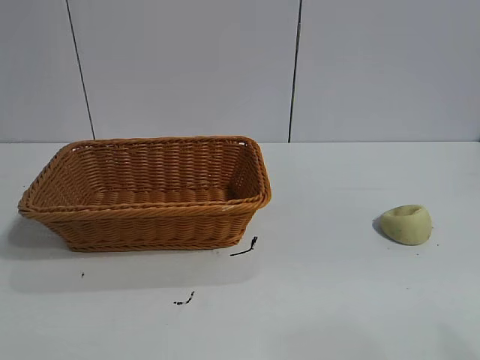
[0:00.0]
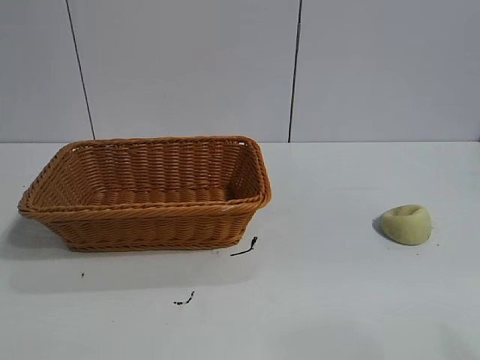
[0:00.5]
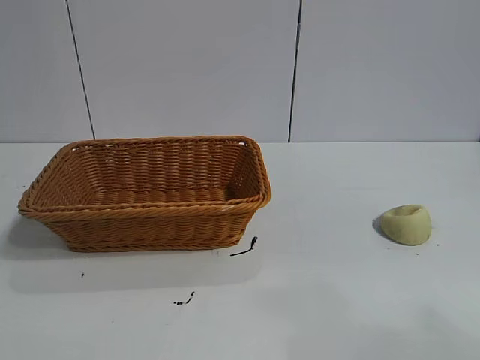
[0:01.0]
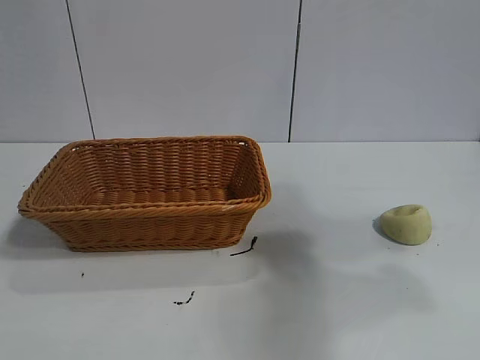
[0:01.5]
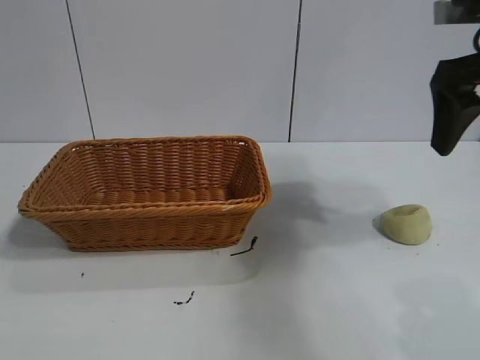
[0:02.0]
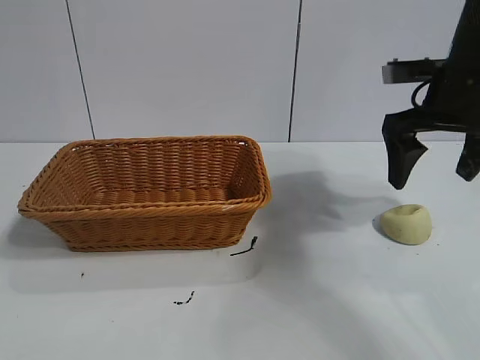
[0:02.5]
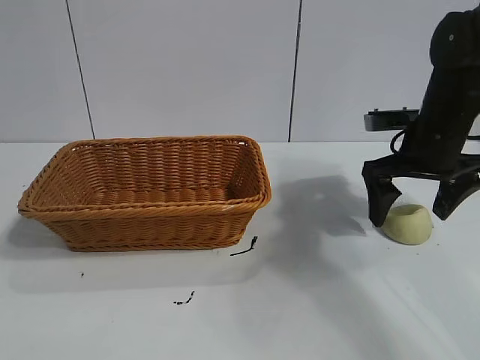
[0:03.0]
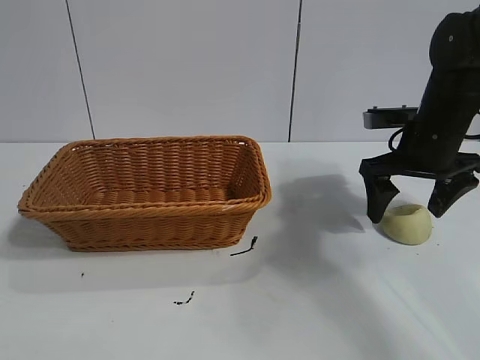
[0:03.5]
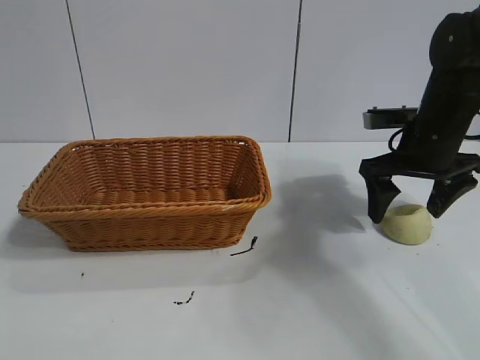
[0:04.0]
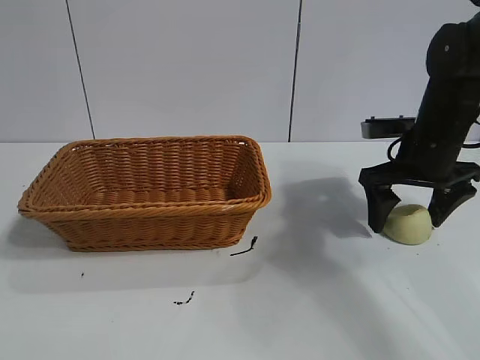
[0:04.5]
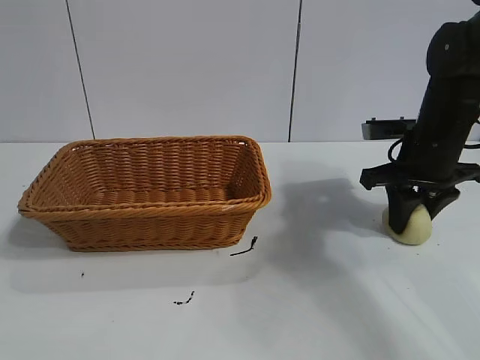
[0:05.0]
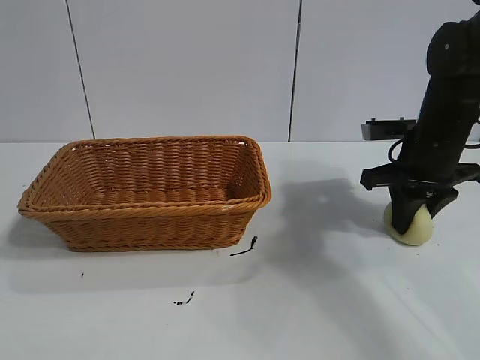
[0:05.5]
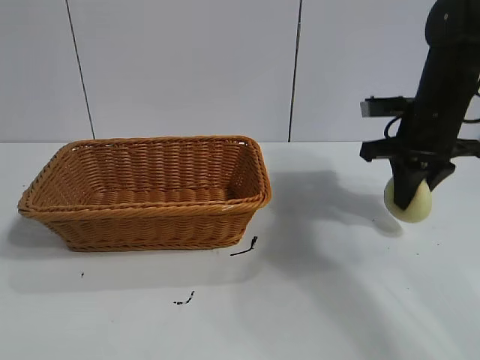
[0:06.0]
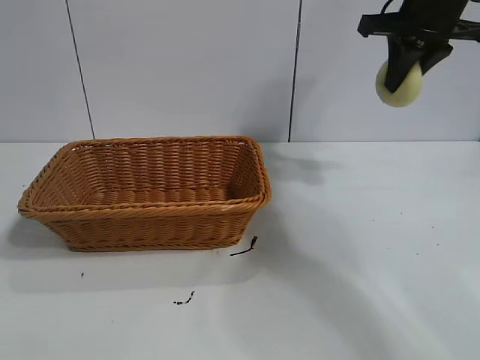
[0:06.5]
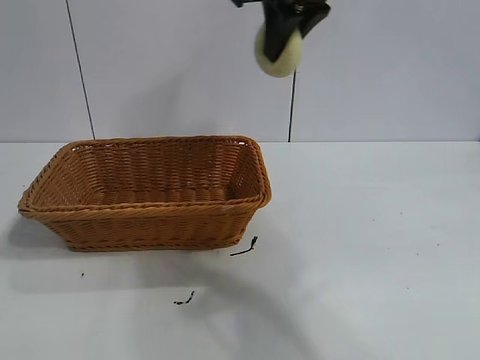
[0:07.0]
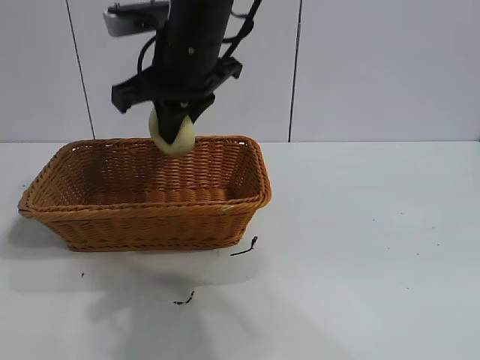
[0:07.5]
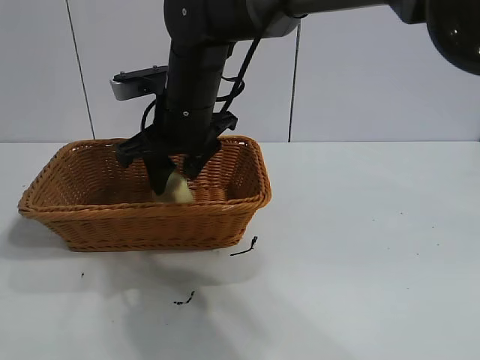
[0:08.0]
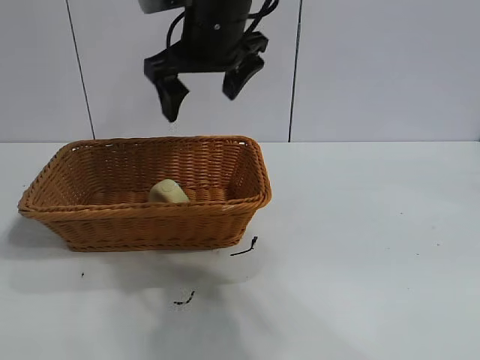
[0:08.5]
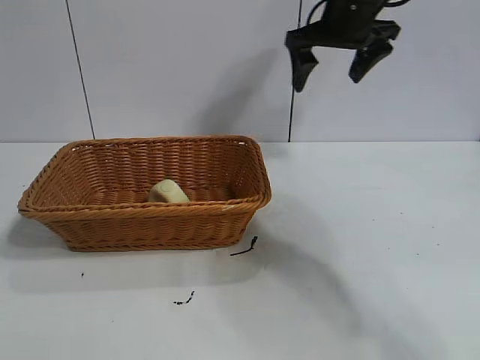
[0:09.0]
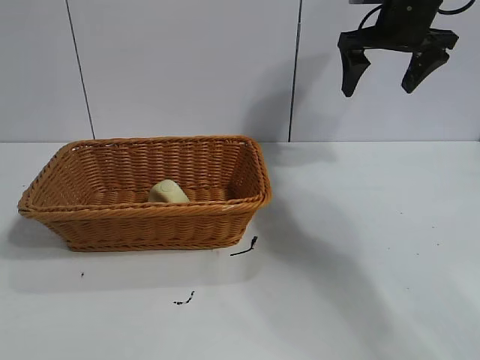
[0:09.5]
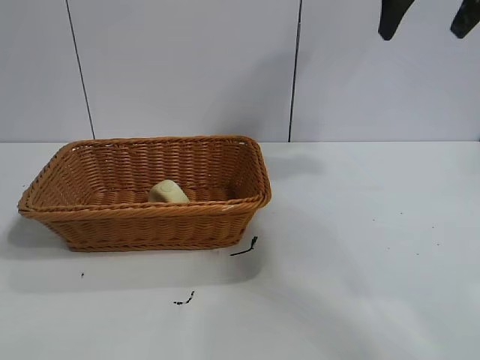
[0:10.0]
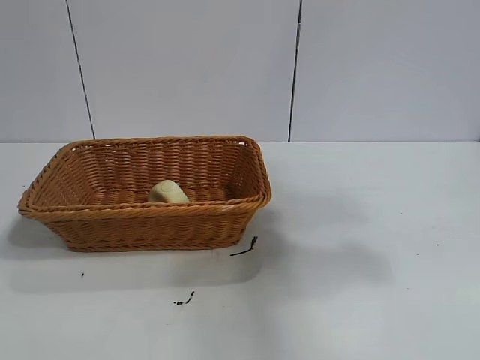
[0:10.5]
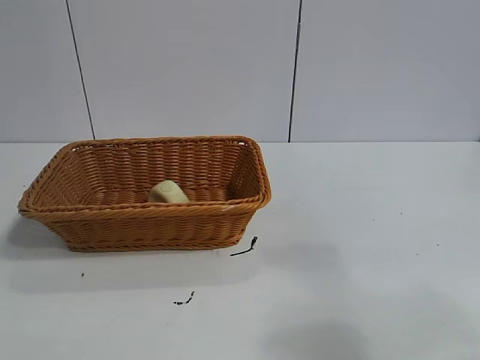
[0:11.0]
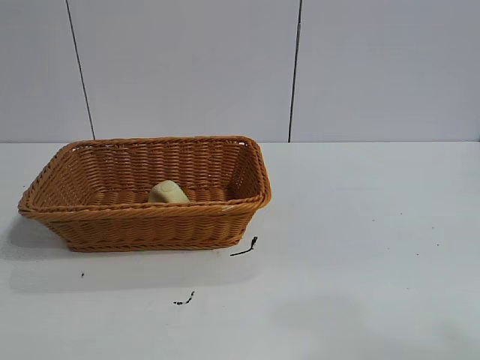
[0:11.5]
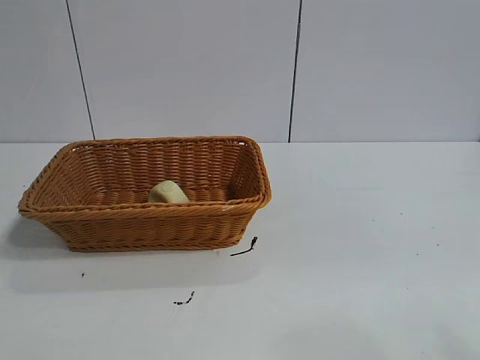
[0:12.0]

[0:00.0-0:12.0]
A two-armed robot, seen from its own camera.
Task of the whole recording: pick up the egg yolk pastry and put it into the basket.
Step, 0:01.0 to 0:05.5: Grasp egg yolk pastry with right gripper.
Step, 0:06.0 to 0:08.0: Place the egg yolk pastry in the basket with right gripper.

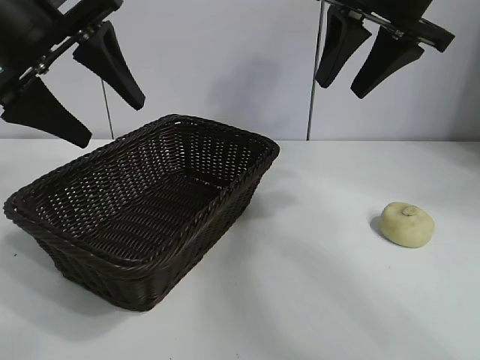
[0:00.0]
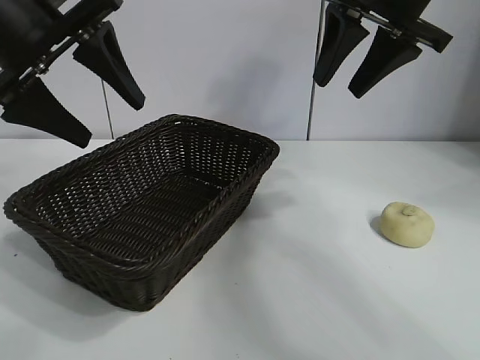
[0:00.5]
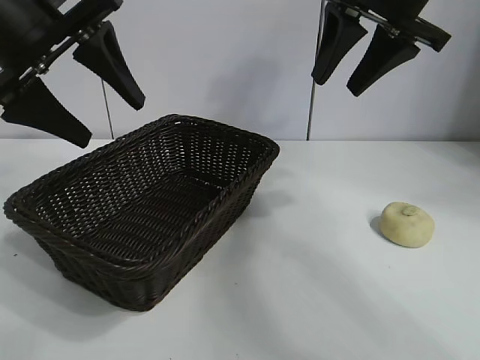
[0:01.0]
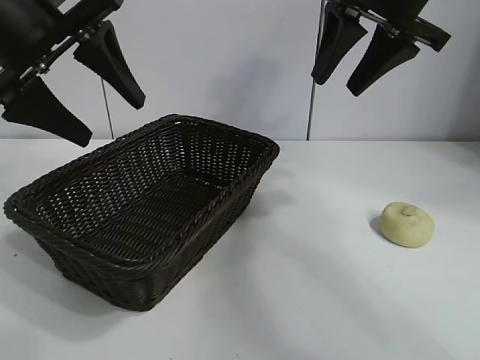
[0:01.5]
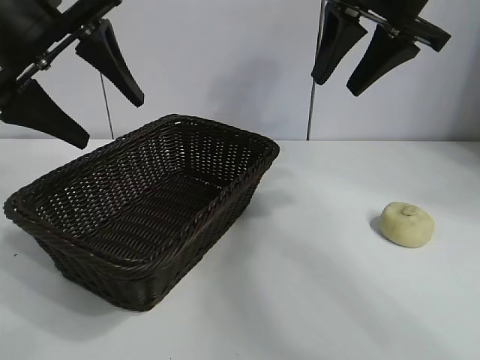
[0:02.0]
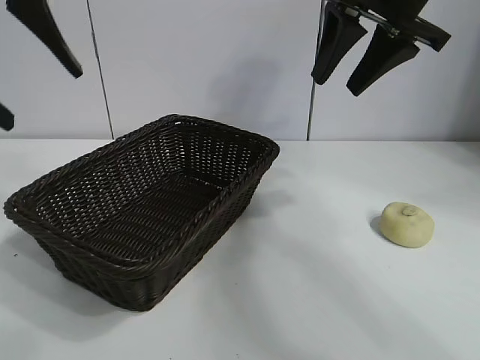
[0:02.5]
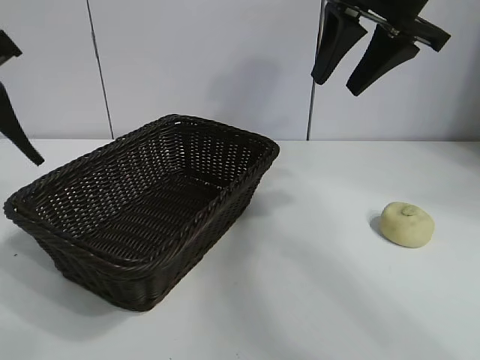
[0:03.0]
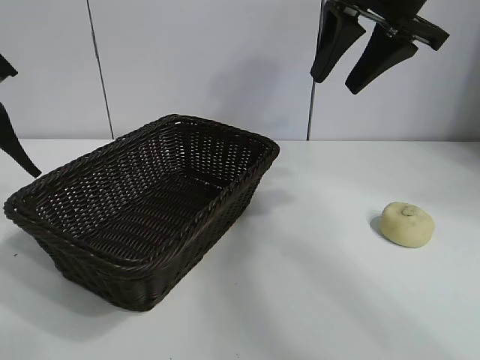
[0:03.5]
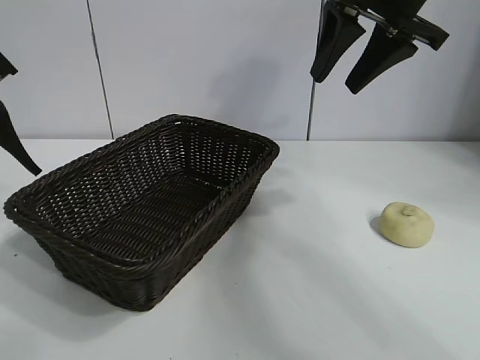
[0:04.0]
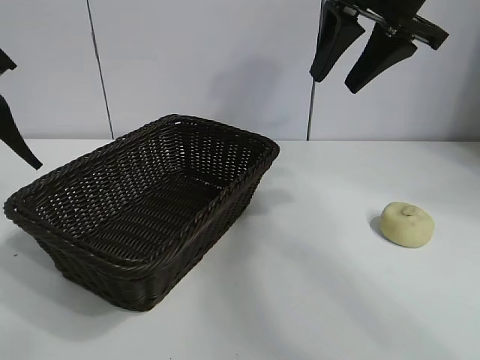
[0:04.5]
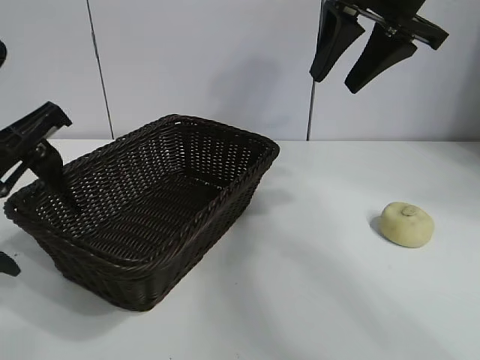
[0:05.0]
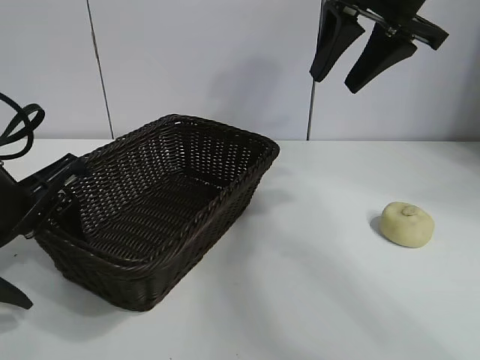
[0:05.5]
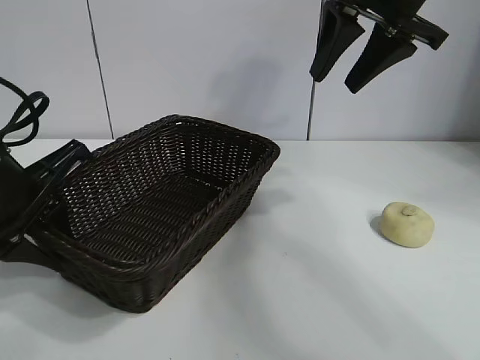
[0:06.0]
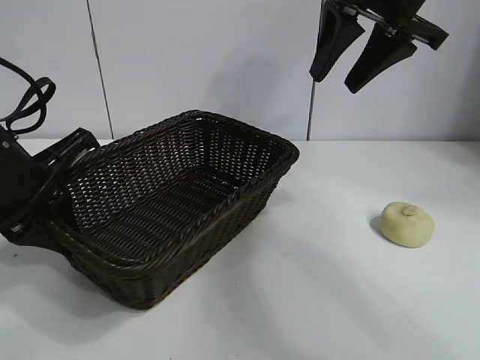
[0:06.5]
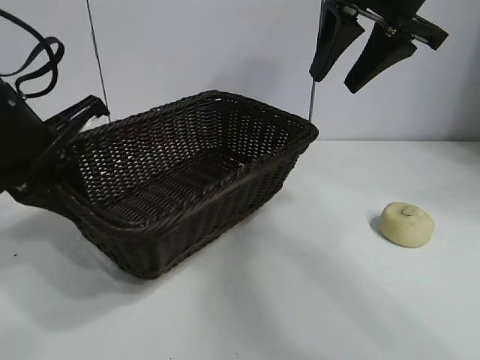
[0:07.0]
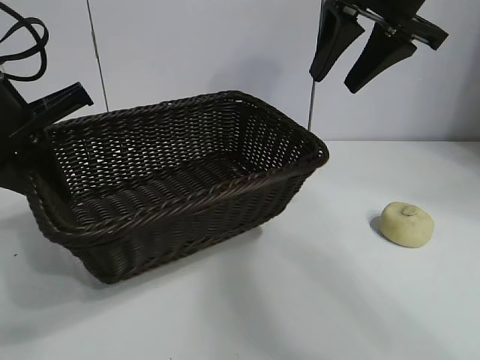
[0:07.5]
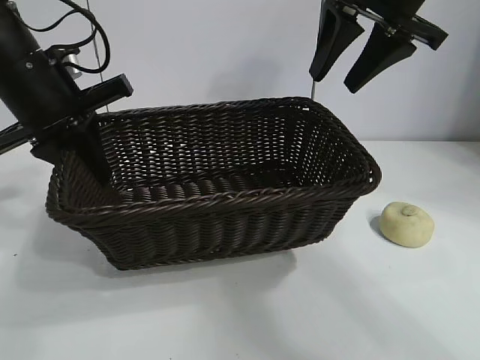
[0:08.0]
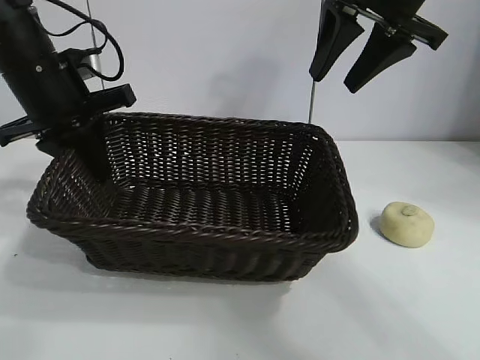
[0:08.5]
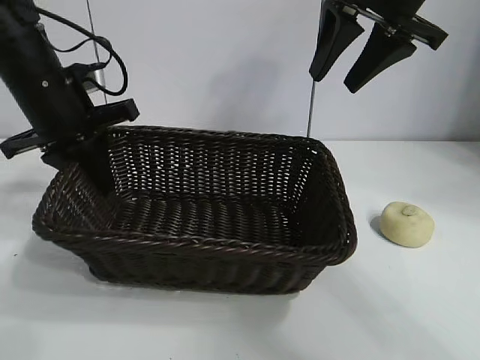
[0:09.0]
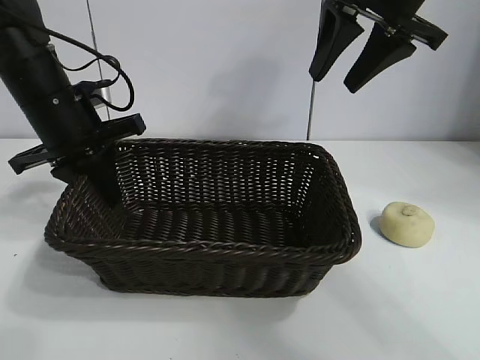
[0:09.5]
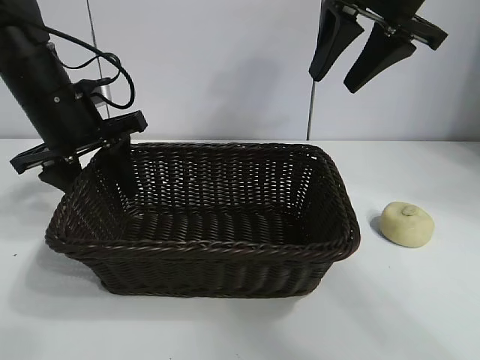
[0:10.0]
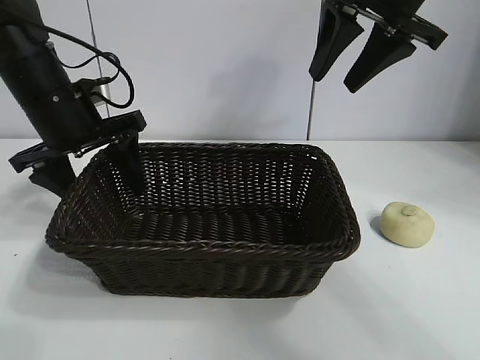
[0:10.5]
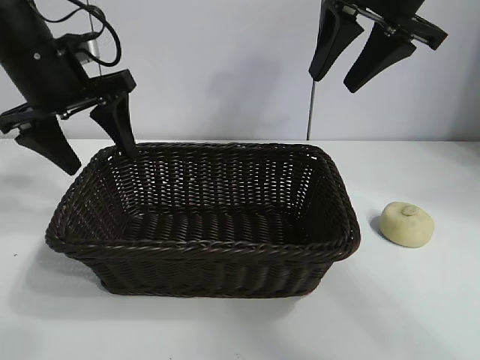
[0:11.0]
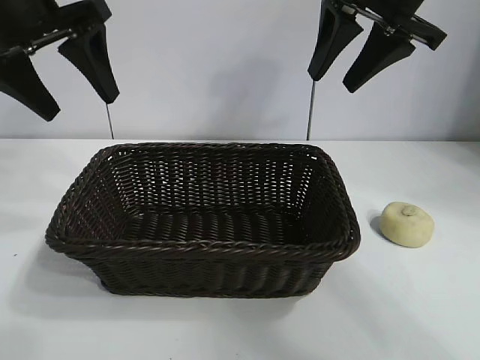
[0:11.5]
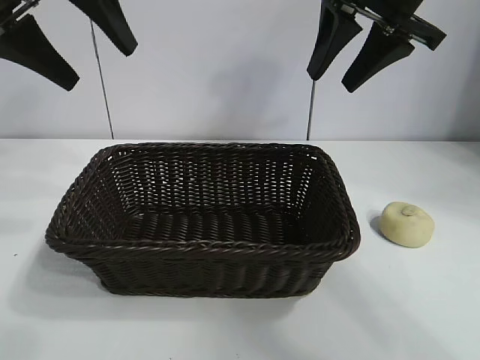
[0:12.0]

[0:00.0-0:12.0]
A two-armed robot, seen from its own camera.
Task of the whole recording: pick up the egg yolk pastry and put it into the basket.
Step, 0:00.0 to 0:06.0: Grasp the basket with left gripper.
Step, 0:06.5 to 0:09.5: Place the basket in the center of view with left gripper.

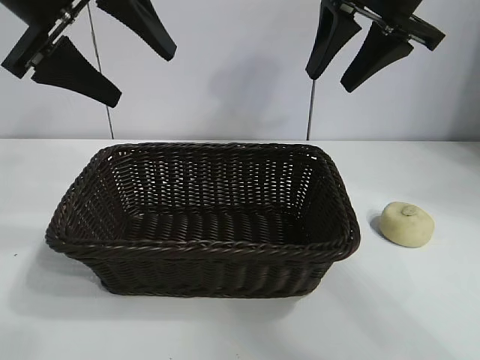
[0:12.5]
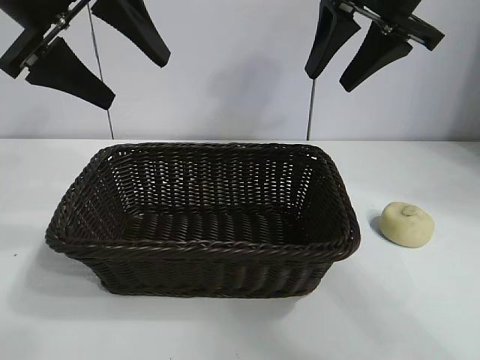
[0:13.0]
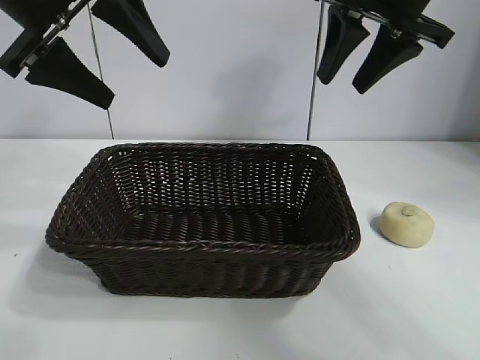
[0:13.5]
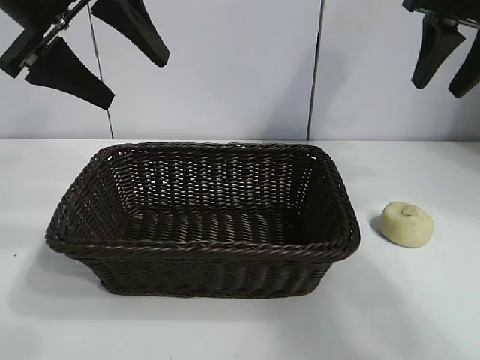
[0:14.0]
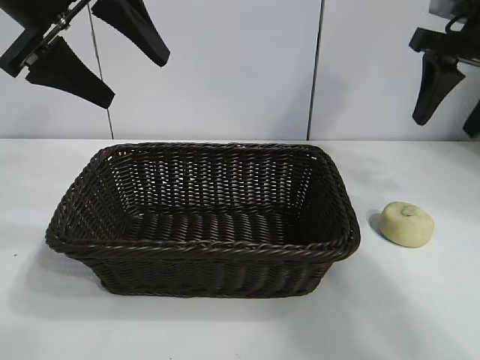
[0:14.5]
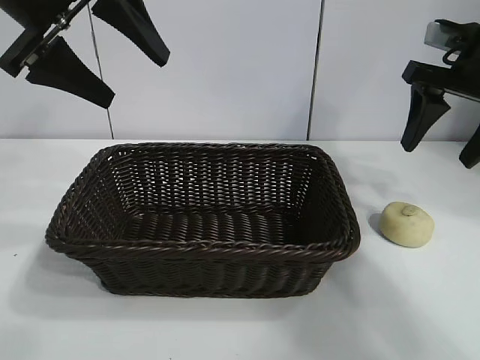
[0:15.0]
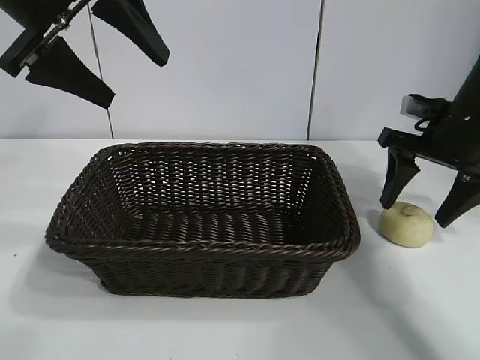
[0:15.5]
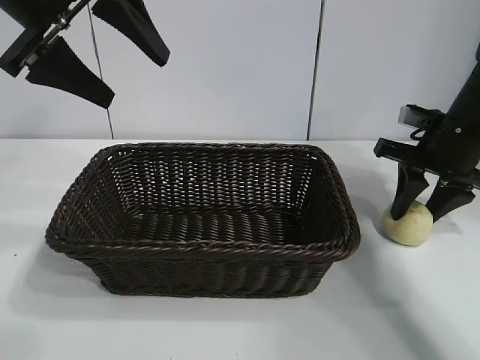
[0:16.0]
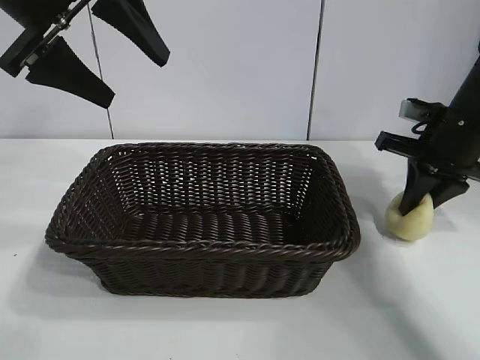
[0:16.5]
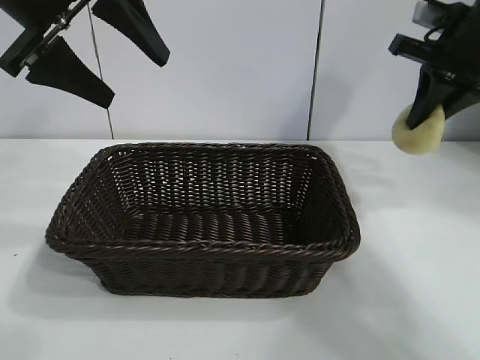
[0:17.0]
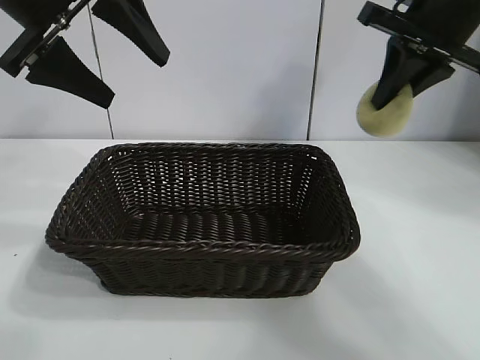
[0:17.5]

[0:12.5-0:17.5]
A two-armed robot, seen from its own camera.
Task of the whole recording: pick up the egg yolk pastry and put it into the basket.
Step, 0:12.5 to 0:16.0: Grasp egg yolk pastry with right gripper.
